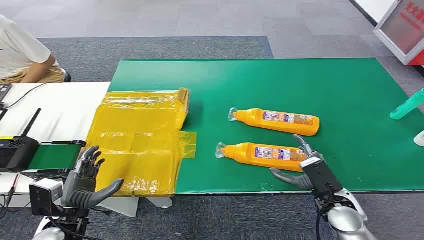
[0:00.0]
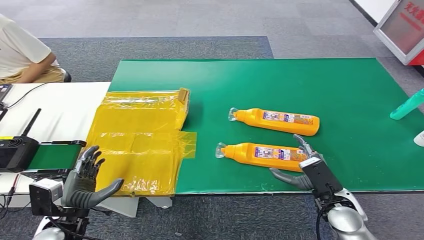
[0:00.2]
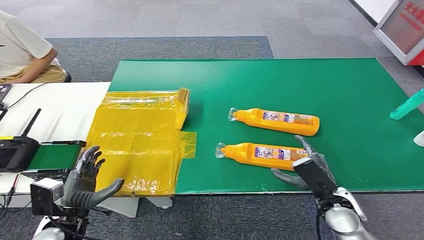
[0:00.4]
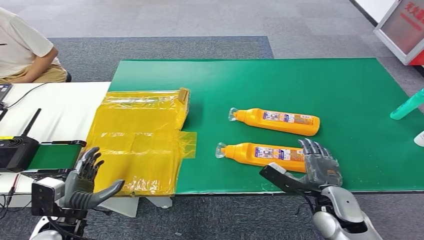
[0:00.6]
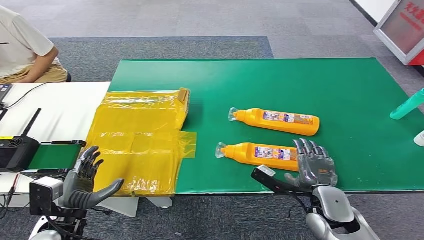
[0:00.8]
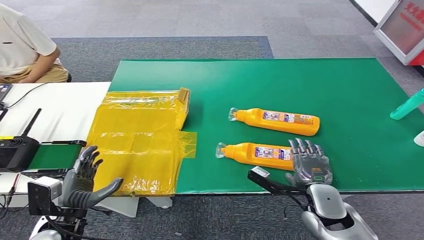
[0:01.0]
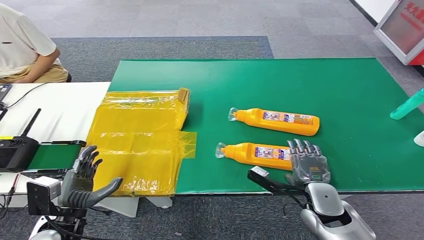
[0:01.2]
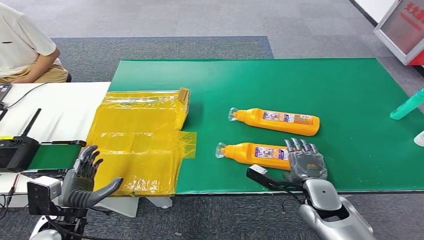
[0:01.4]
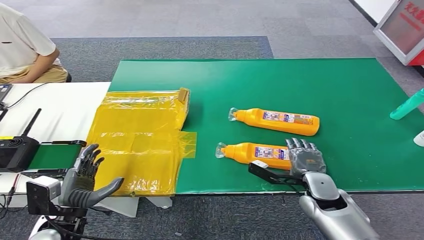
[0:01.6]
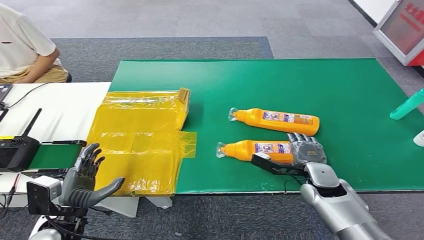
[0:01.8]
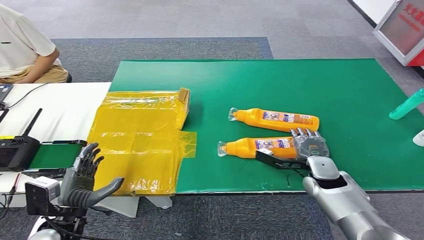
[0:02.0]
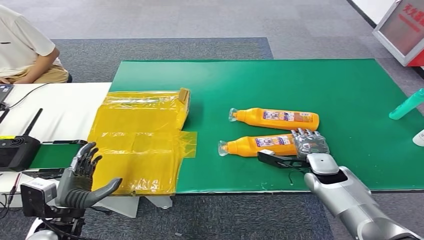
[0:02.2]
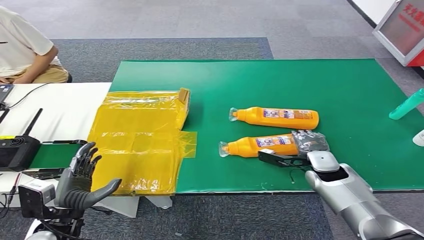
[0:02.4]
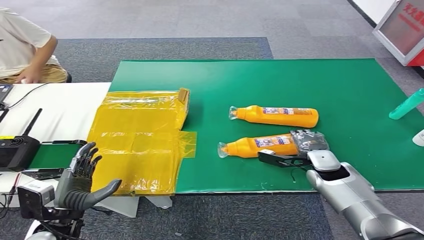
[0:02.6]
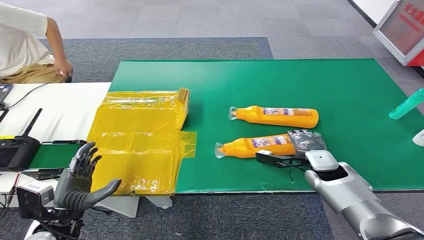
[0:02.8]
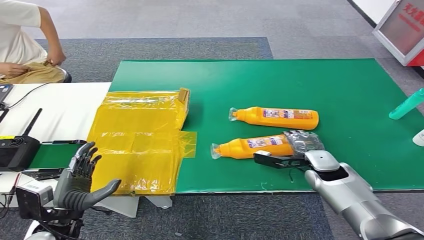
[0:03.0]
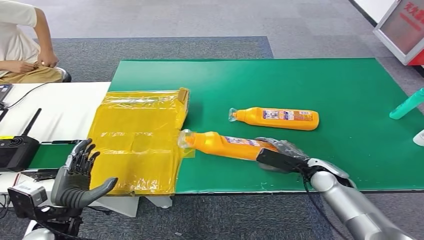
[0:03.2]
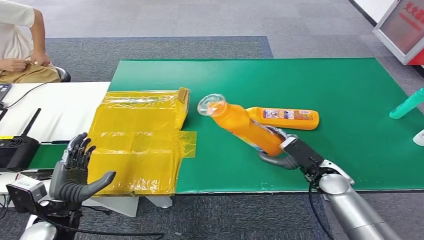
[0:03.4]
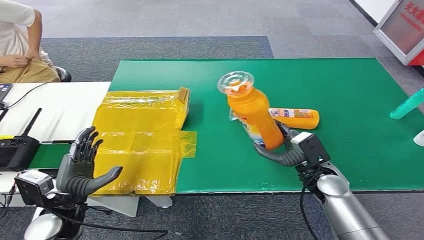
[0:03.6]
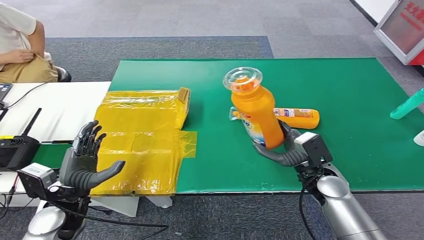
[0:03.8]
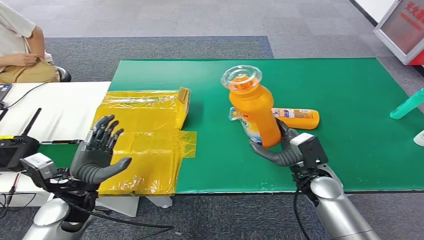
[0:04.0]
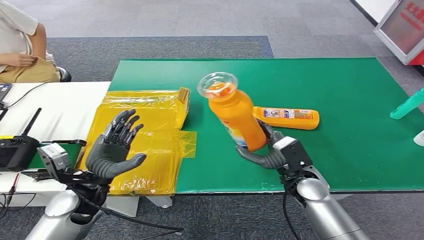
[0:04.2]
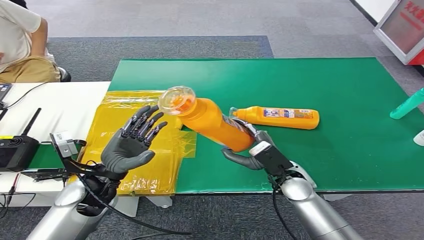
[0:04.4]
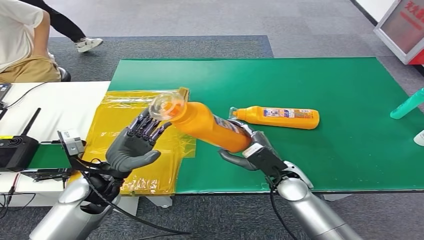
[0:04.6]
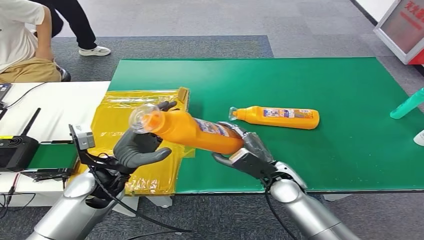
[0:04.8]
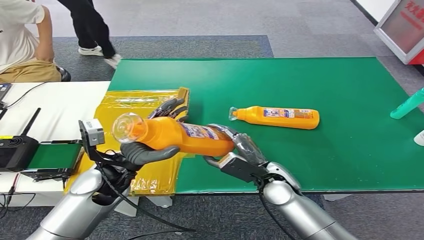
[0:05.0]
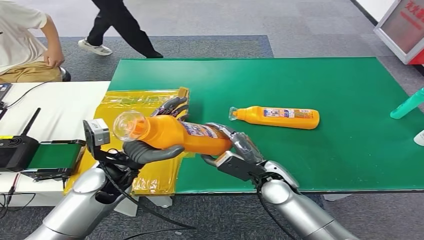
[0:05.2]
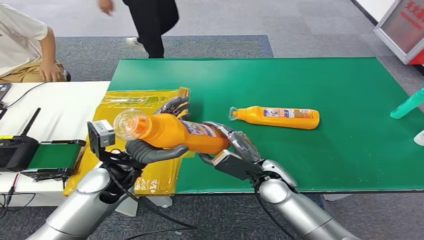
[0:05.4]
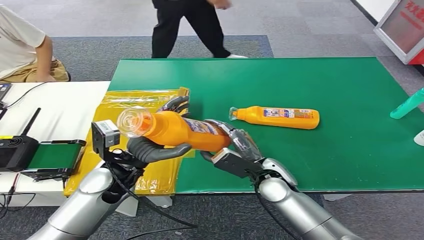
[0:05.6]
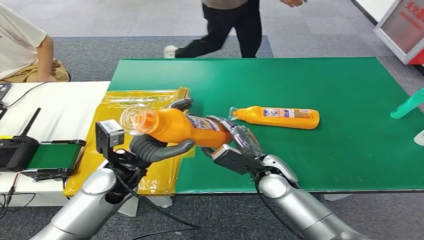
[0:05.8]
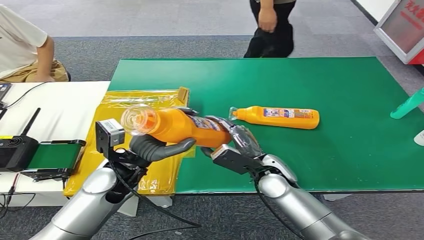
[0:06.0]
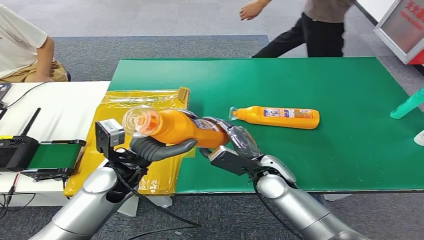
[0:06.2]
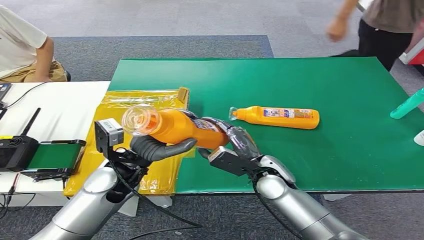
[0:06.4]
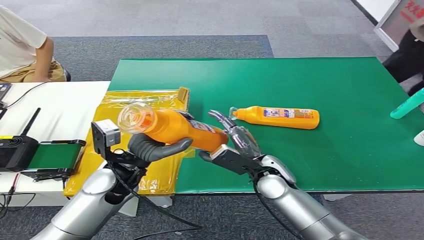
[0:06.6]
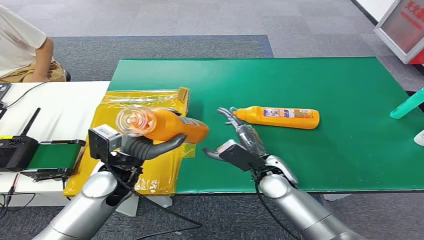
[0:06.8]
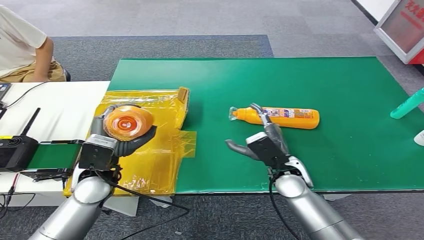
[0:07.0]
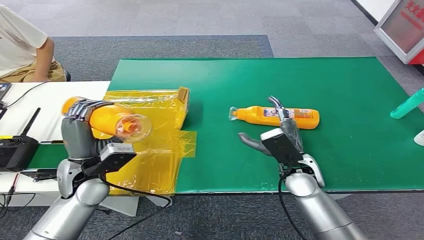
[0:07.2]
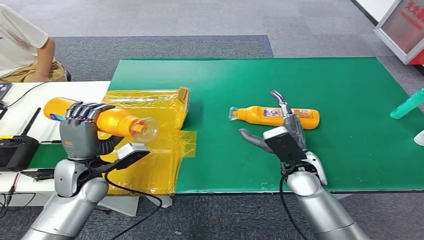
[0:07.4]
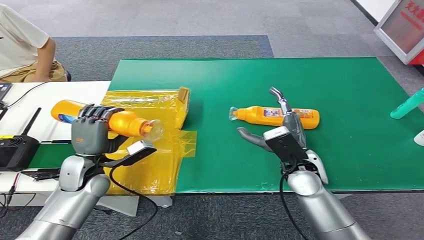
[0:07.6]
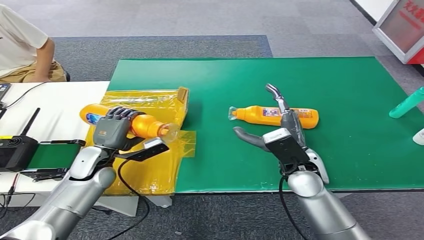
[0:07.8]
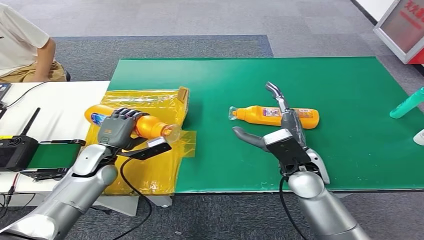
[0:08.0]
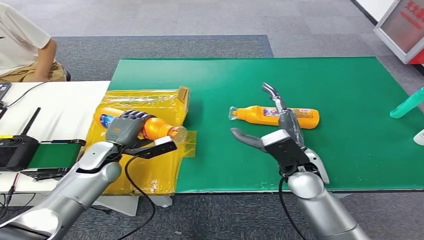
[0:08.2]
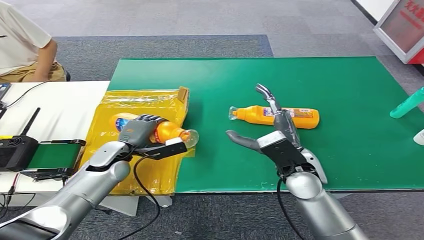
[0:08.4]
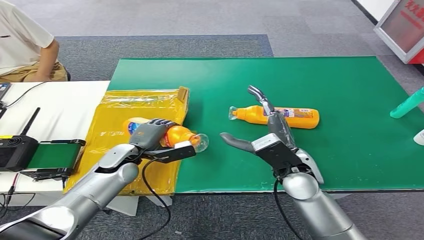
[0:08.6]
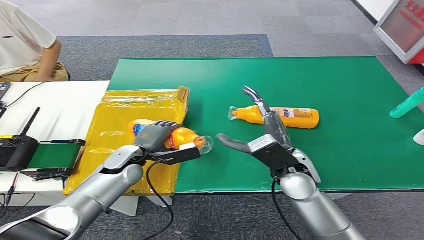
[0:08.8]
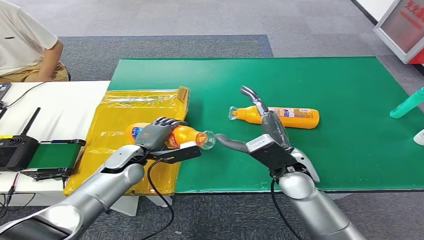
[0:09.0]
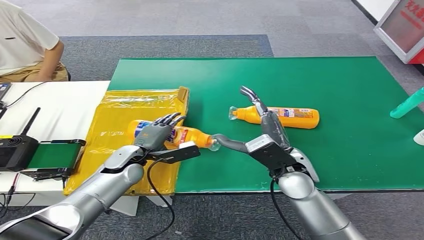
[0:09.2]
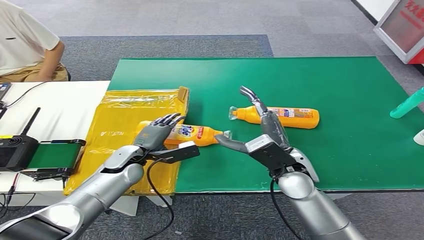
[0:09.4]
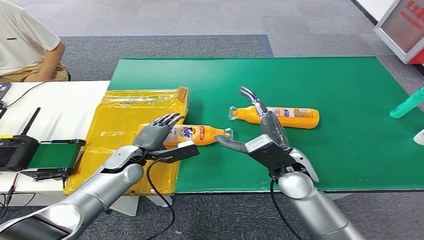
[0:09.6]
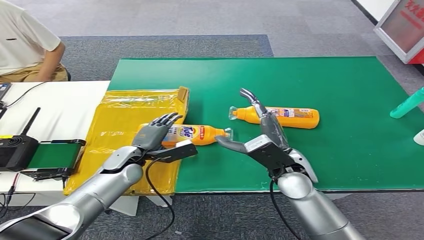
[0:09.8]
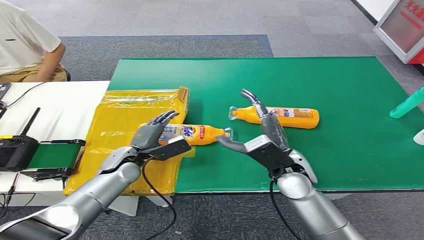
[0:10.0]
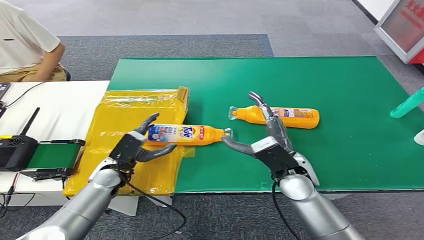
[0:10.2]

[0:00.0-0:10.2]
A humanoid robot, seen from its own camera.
Step, 0.0 to 4.0 s: Pick up the bottle from the table.
Step, 5.2 to 10.0 s: Turn the bottle to the front side.
1.4 to 3.0 s: The right hand shifts approximately 10 cm forward.
7.2 to 8.8 s: The right hand ends up approximately 5 cm from where it was. The left hand travels downward and forward by some 10 cm.

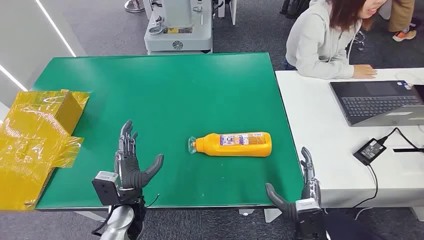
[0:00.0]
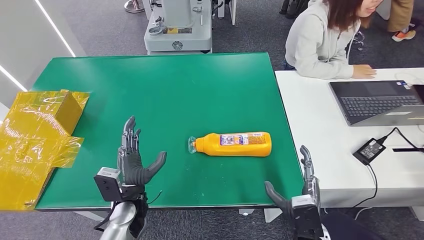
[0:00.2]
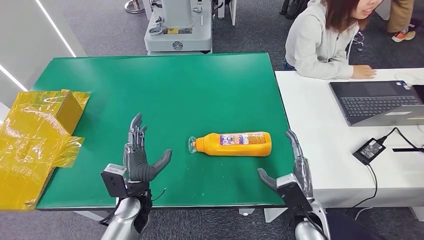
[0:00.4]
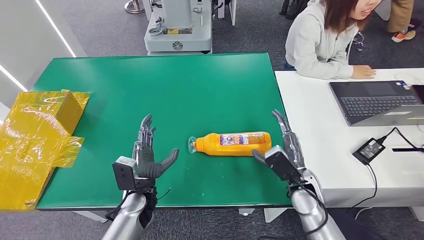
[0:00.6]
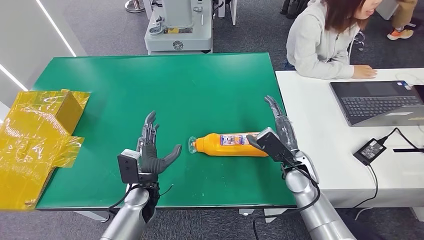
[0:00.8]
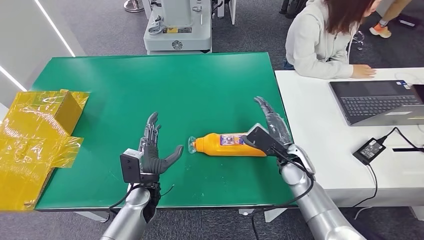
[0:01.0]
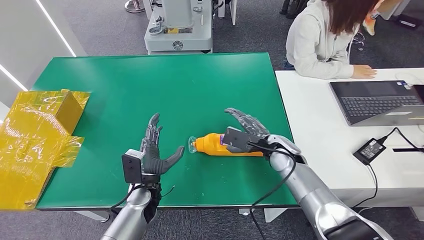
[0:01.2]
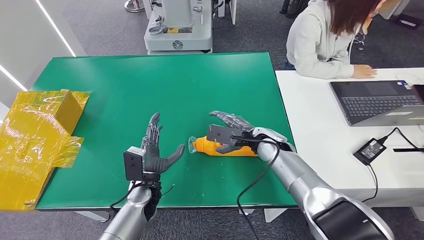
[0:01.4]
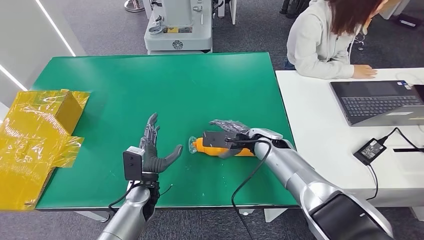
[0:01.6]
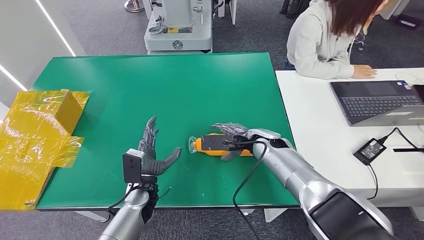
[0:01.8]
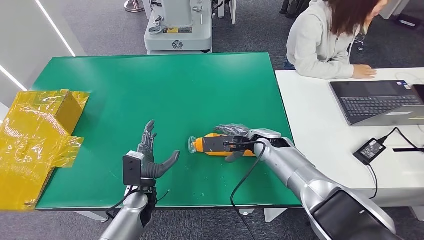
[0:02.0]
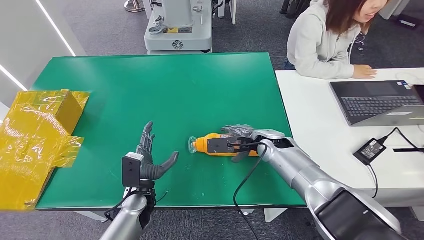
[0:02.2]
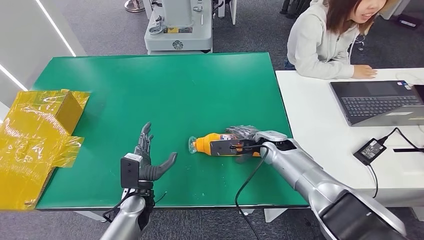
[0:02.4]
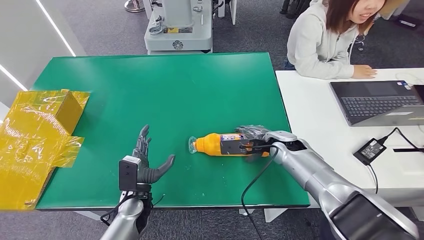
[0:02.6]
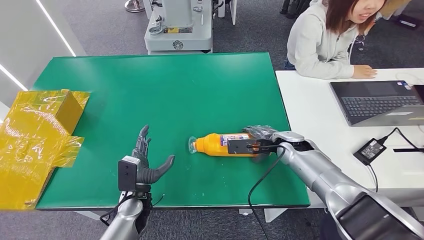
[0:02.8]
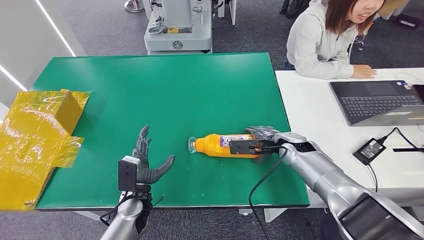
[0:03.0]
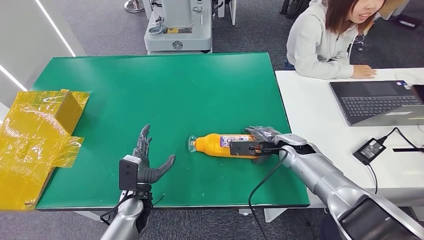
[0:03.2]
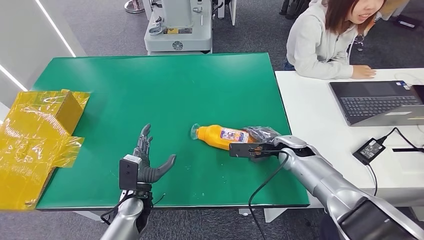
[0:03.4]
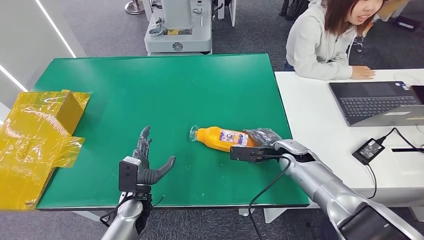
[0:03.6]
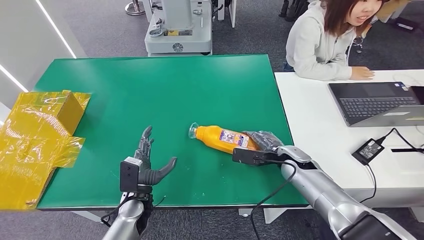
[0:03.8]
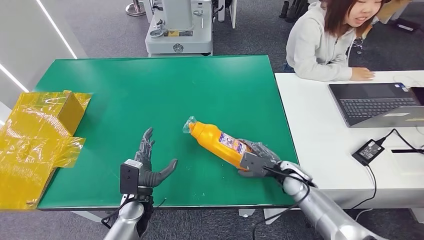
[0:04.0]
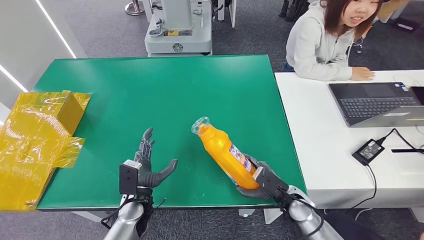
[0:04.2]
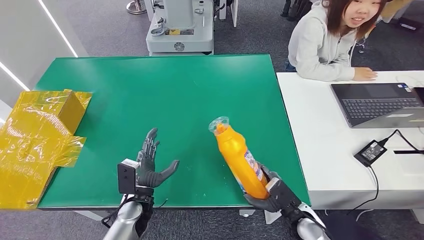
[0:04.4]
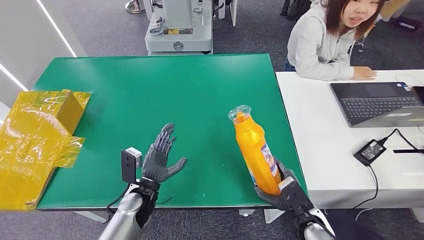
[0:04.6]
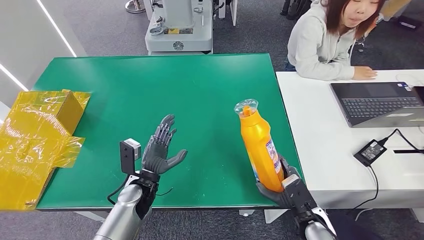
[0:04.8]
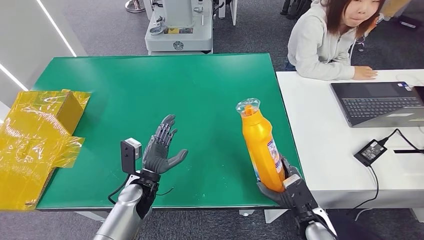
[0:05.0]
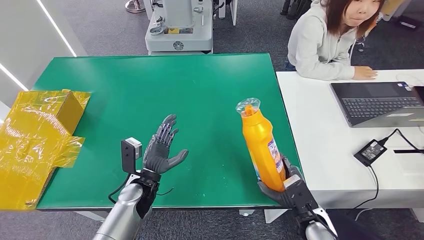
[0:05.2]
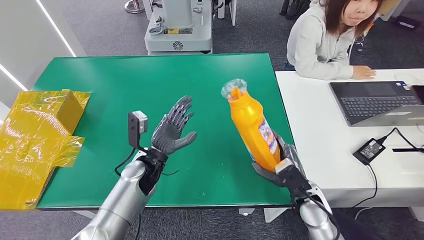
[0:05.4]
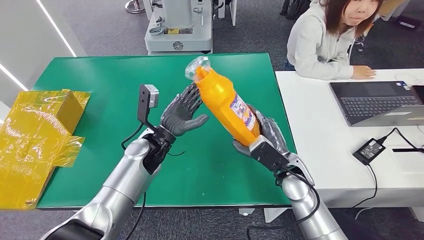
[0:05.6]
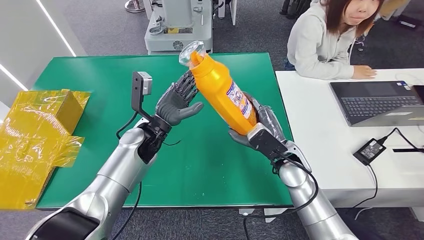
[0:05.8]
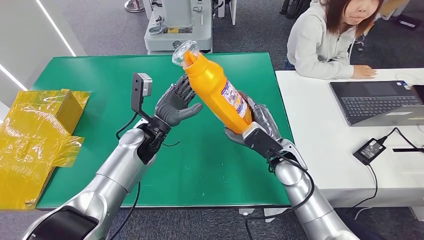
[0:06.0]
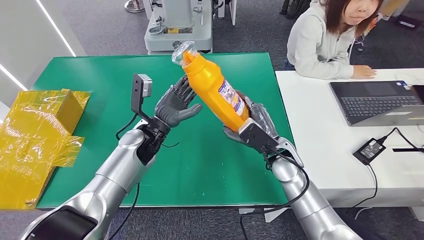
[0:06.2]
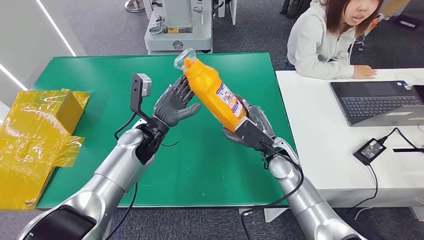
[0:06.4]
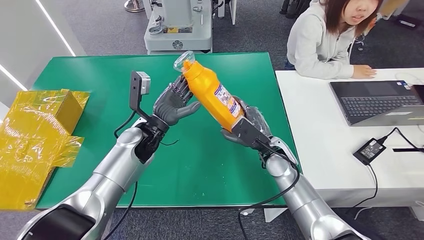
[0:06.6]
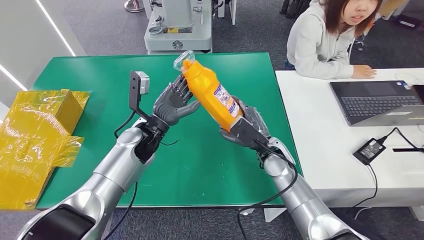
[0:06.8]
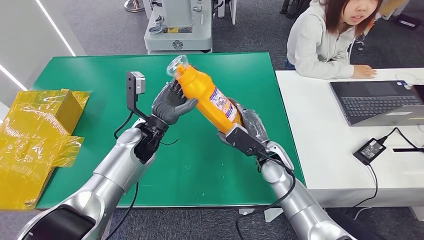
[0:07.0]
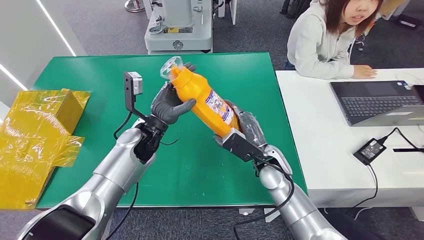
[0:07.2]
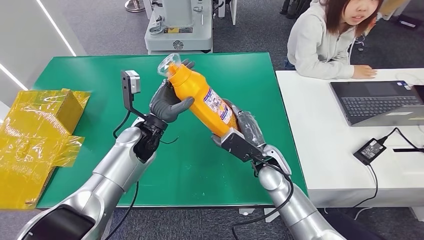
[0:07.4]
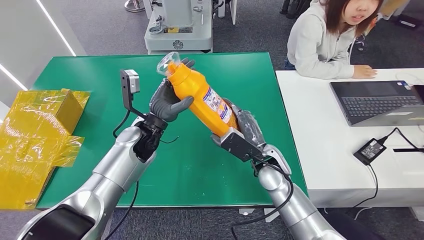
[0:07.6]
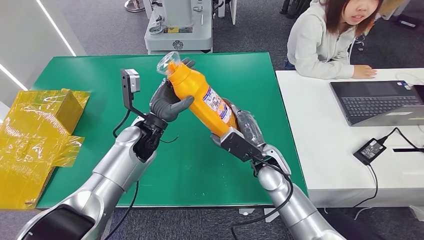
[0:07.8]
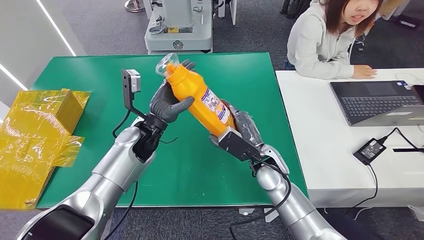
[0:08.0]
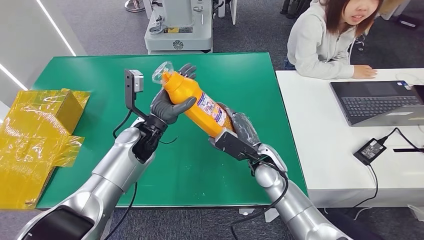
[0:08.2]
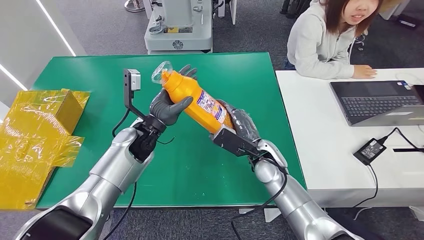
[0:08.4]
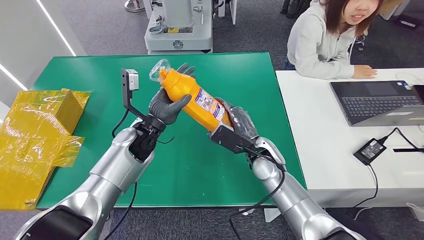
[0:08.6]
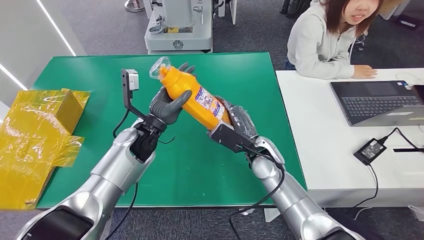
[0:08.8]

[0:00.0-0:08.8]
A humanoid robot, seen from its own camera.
Step, 0.0 to 5.0 s: Pick up the bottle from the table.
1.4 to 3.0 s: The right hand shifts some 5 cm to the right.
5.8 to 7.4 s: The right hand changes place by some 5 cm.
7.4 to 8.8 s: There are only small adjustments of the hands.
